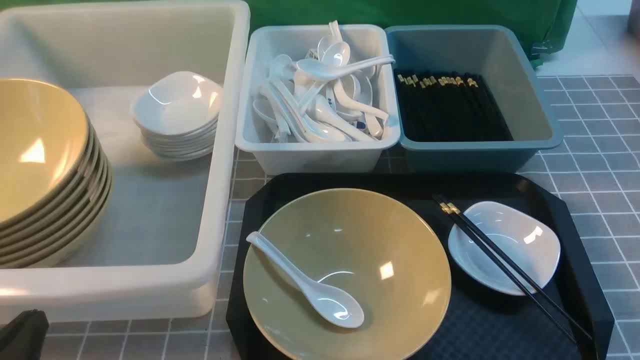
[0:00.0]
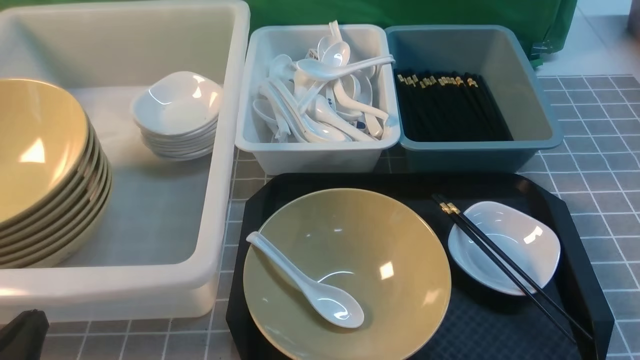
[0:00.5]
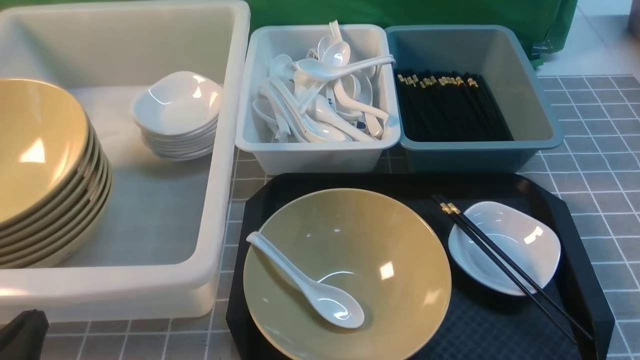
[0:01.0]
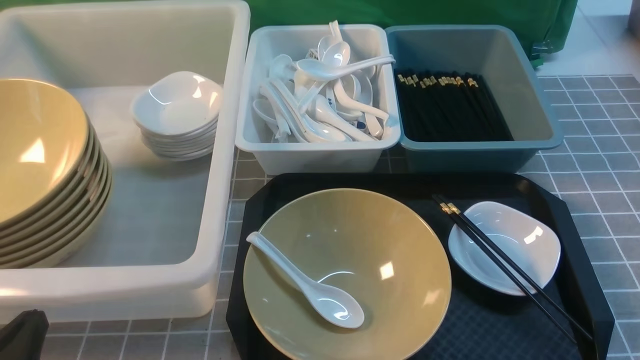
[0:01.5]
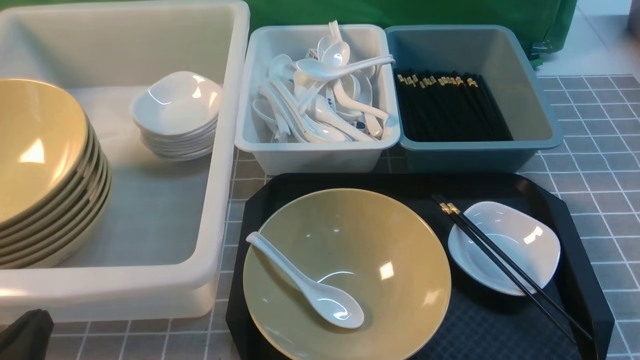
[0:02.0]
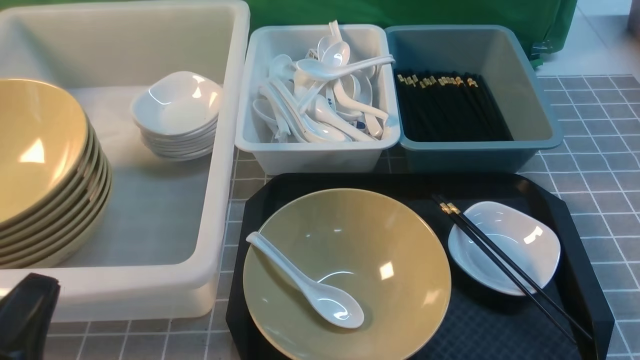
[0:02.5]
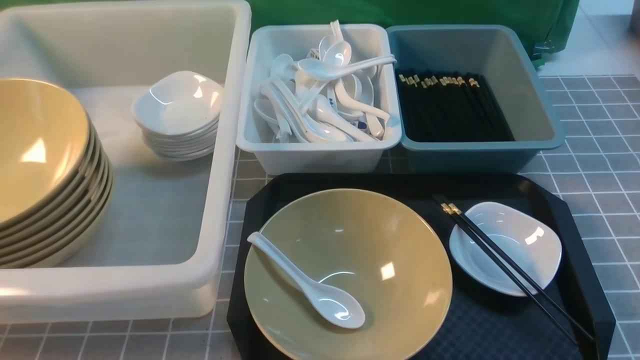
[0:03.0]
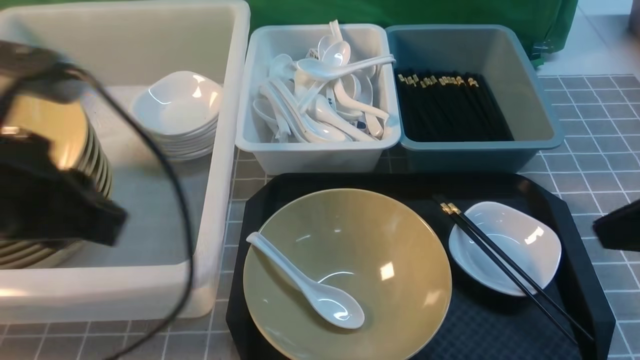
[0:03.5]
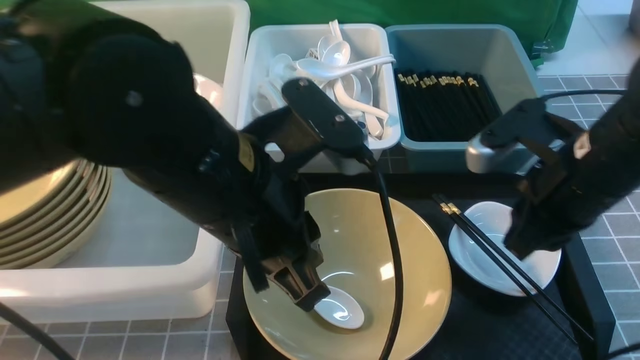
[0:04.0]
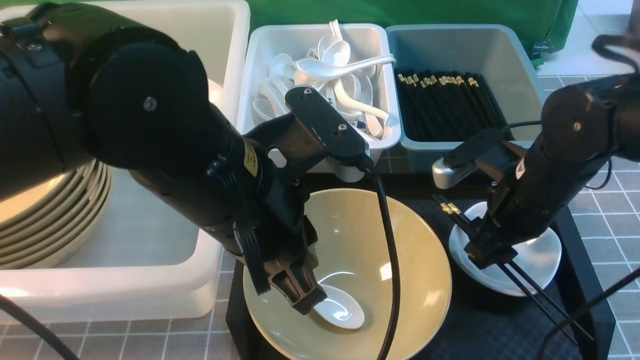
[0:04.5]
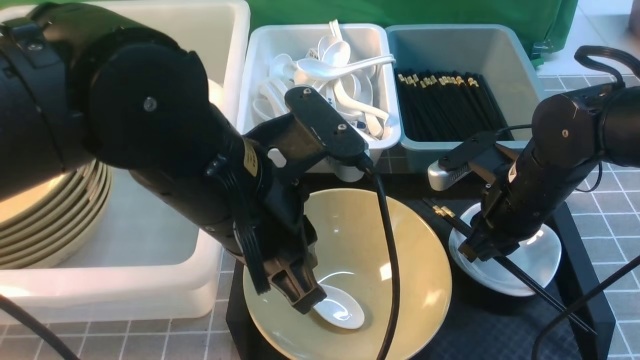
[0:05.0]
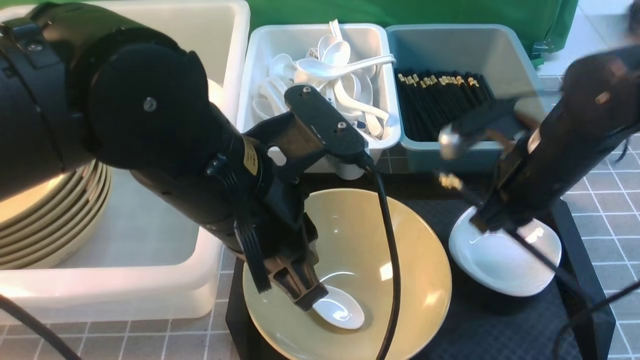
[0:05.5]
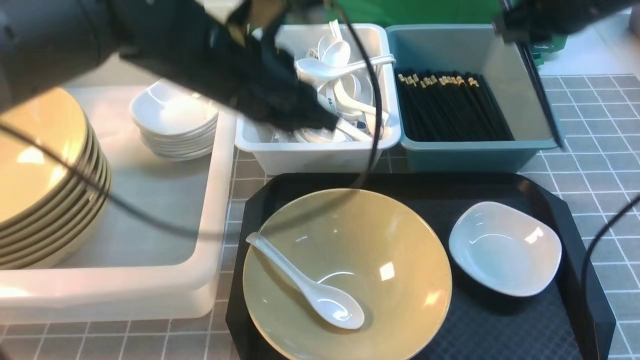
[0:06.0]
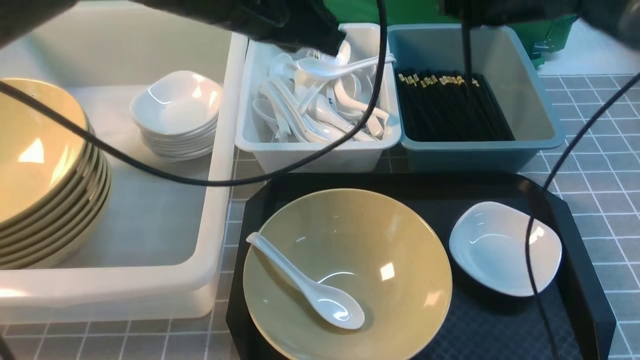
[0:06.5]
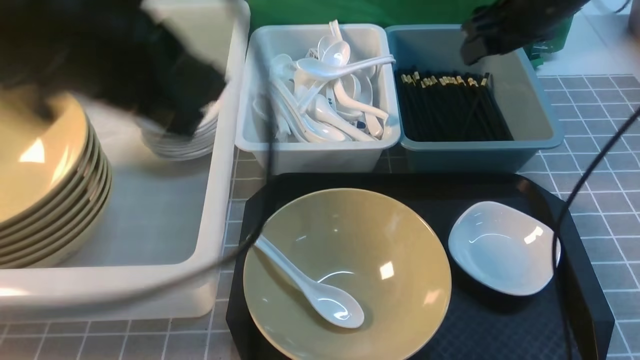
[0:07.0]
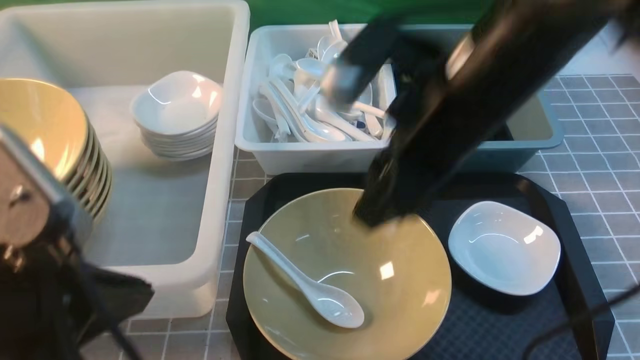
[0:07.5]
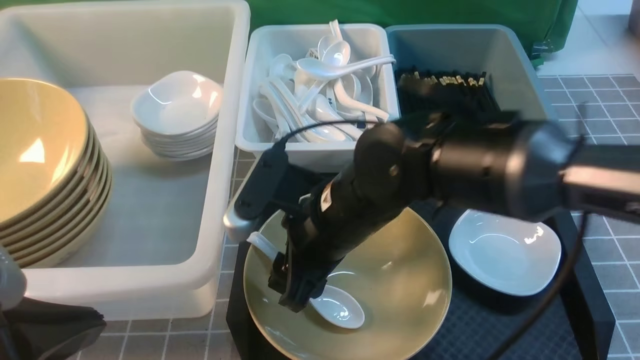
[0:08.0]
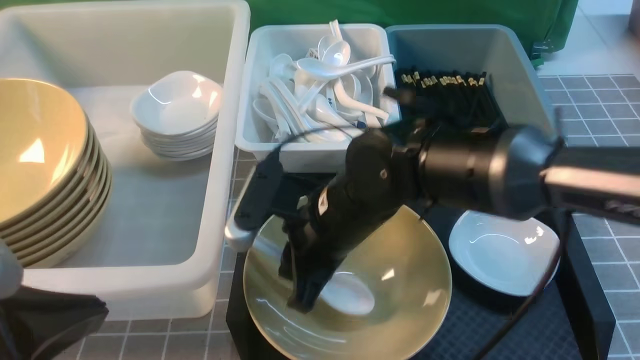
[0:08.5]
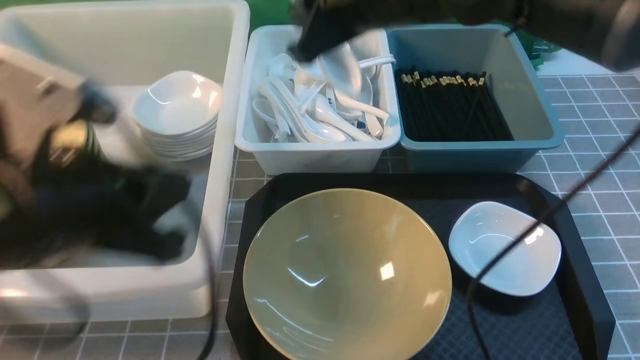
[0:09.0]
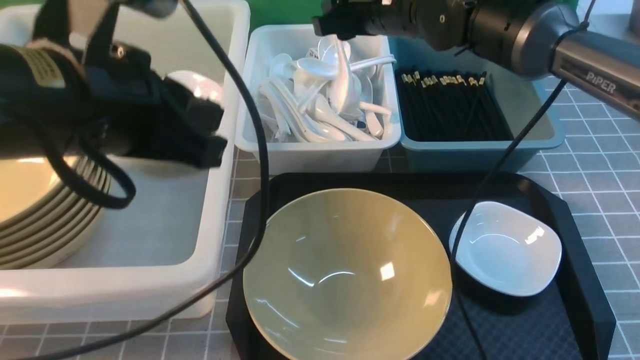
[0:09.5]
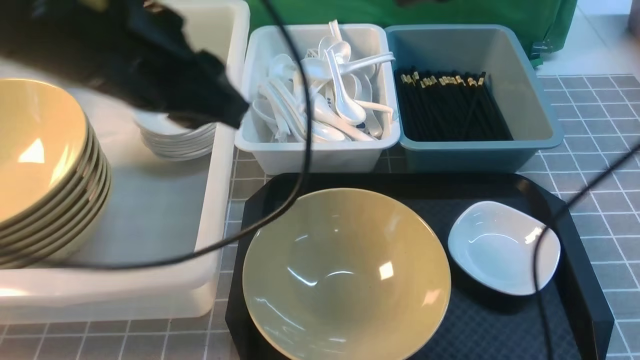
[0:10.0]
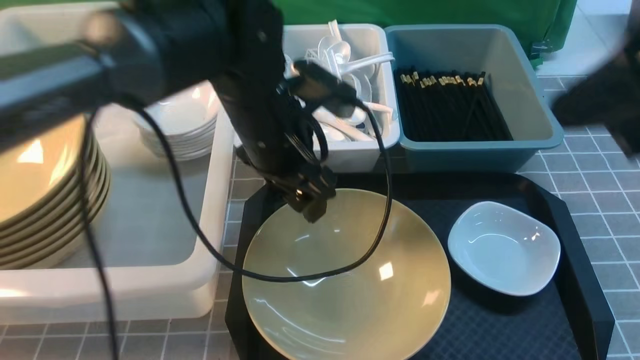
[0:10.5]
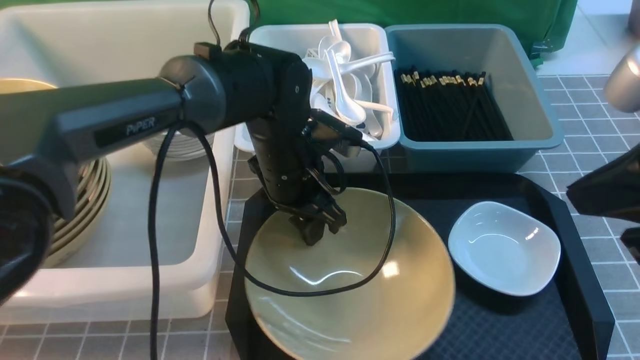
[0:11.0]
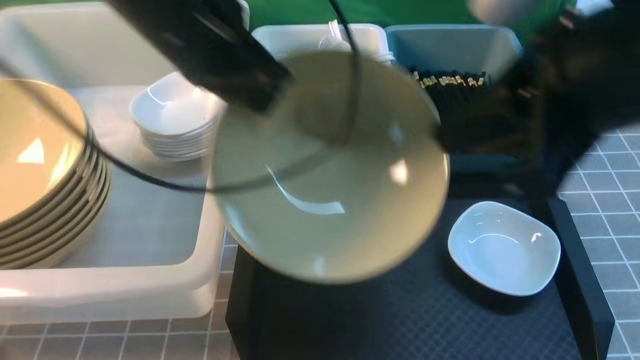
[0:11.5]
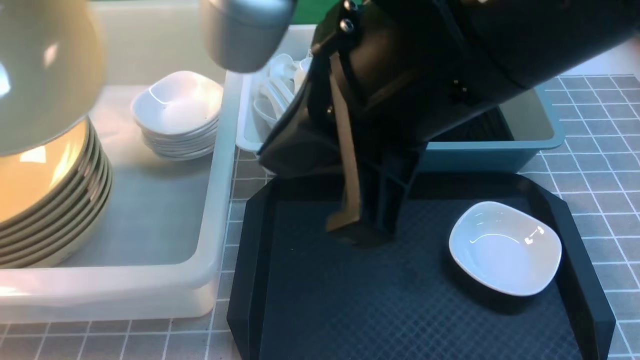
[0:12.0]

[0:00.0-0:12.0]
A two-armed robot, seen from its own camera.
Task of the whole recording: on grey table put chopsticks spoon bowls plates into blue grey white boxes.
Step, 0:00.0 to 0:05.5: use the right arm to grab the chopsticks.
Step, 0:06.0 to 0:06.5: use the right arm to put the chopsticks into the small storage box on the right.
Step, 0:07.0 to 0:08.5: use the right arm to grab the soup spoon in the middle.
Step, 0:09.0 to 0:09.5: use the right arm to put the soup spoon into the small storage box in the middle.
Step, 0:10.0 to 0:11.0: use the left arm to grab the yellow noodle bowl on the left.
0:02.0 to 0:04.0: The right gripper is displaced forward, to the left and upward by about 25 cm; the left gripper shifts approximately 25 cm to the right, upward and forward.
0:04.0 to 0:06.0: The right gripper moves forward and upward, about 15 cm, and opens and closes again; the left gripper goes approximately 10 cm forward.
0:06.0 to 0:08.0: The left gripper moves backward and to the left, approximately 25 cm, while the right gripper goes approximately 25 cm to the left, backward and downward, and opens its fingers.
0:08.0 to 0:10.0: The right gripper moves upward, to the right and forward, about 25 cm, and closes, then reopens. Meanwhile the left gripper moves forward and to the right, about 20 cm.
0:10.0 to 0:12.0: The right gripper is displaced backward by about 20 cm, and closes, while the left gripper goes about 20 cm to the left, and opens, then closes again.

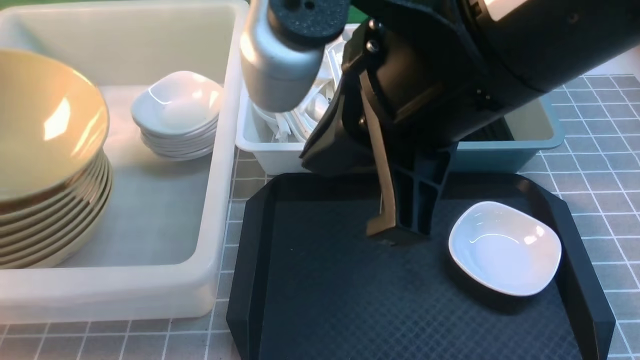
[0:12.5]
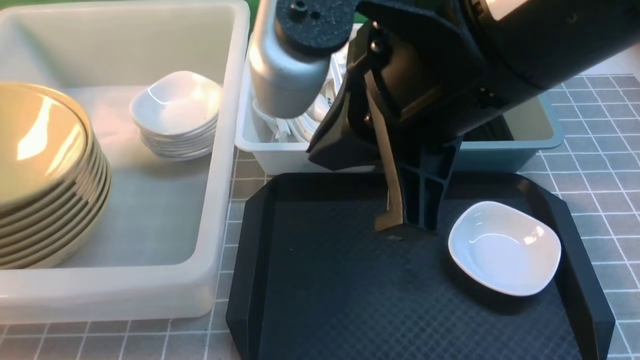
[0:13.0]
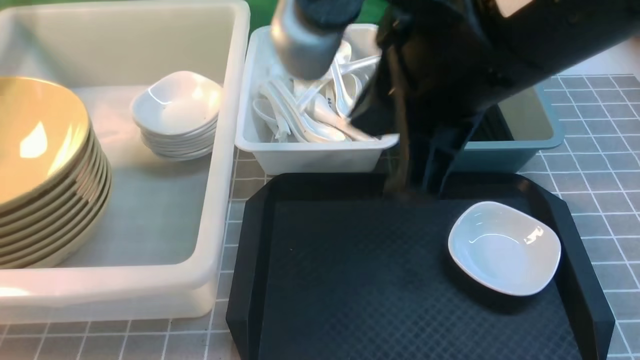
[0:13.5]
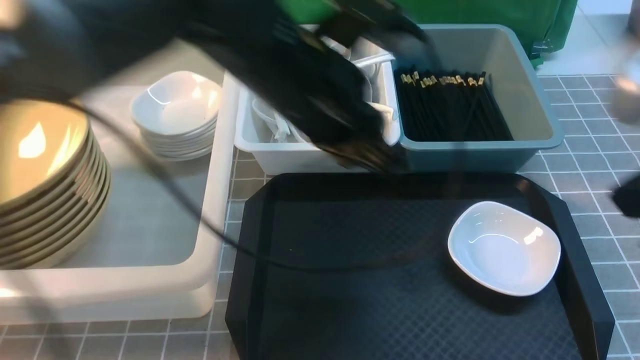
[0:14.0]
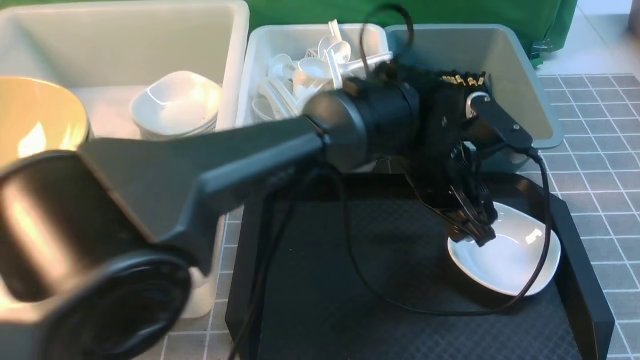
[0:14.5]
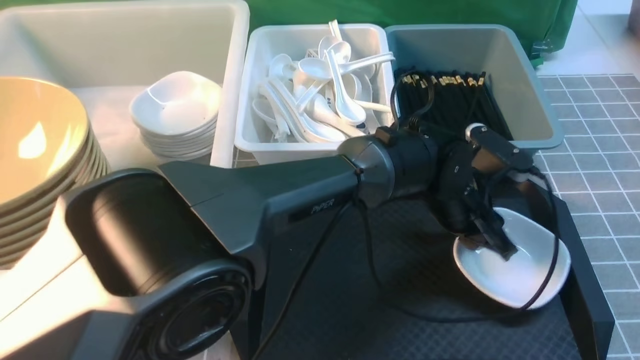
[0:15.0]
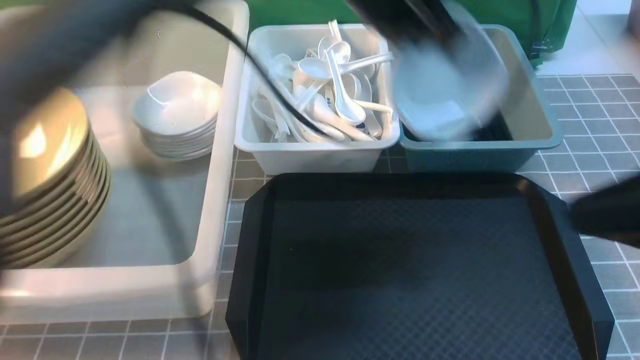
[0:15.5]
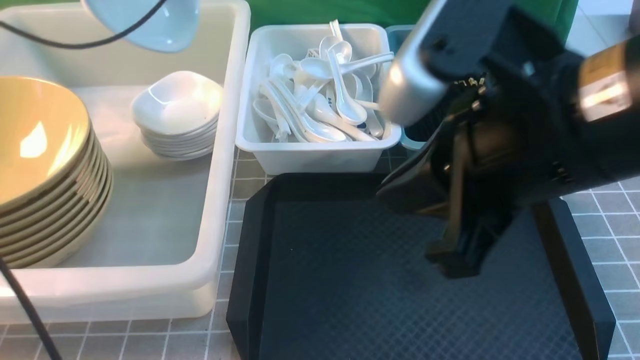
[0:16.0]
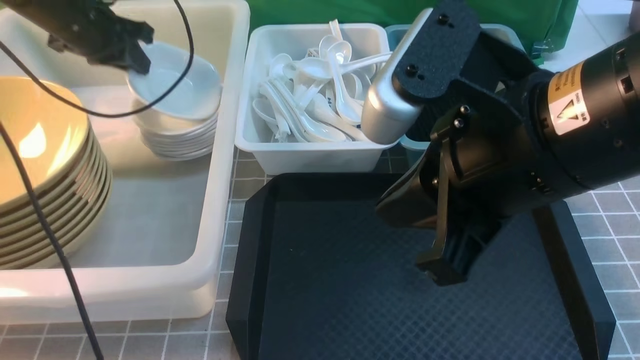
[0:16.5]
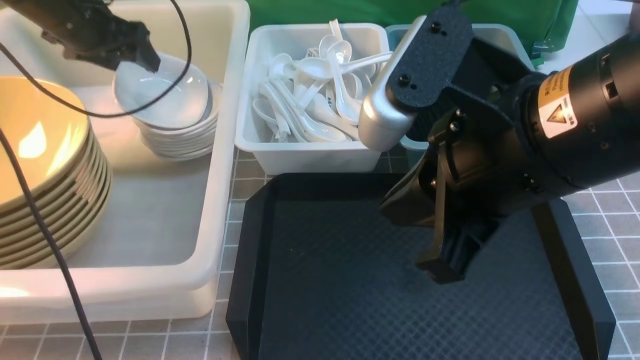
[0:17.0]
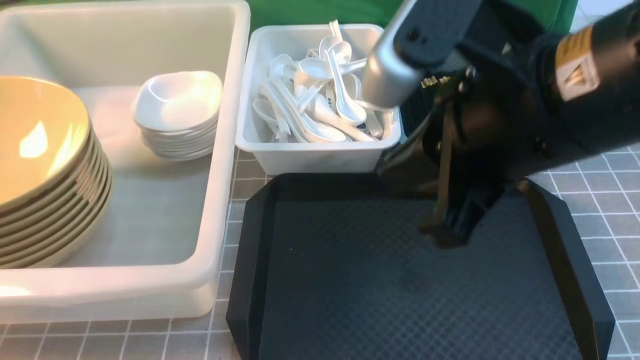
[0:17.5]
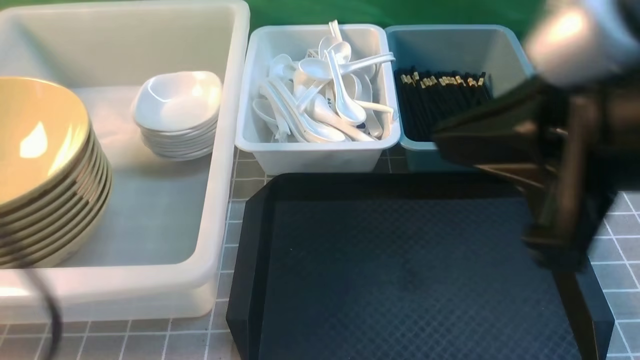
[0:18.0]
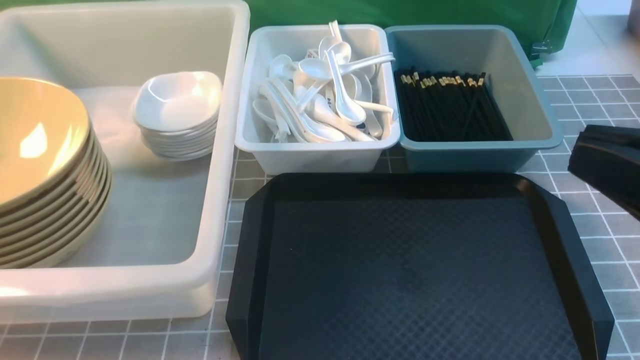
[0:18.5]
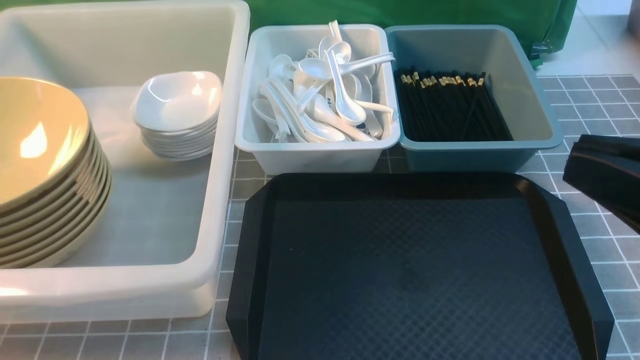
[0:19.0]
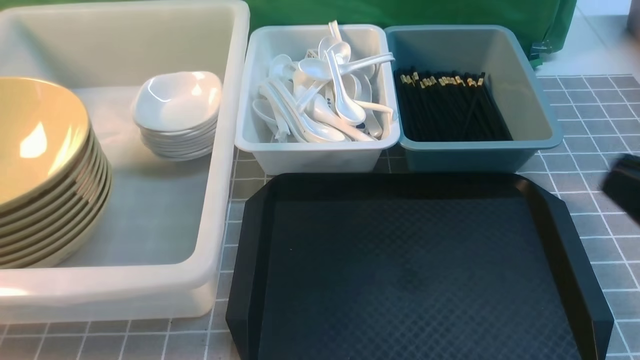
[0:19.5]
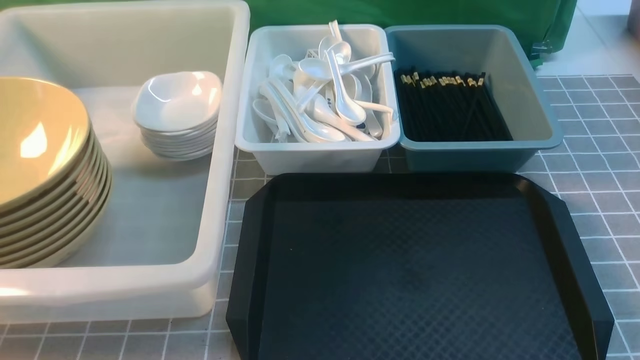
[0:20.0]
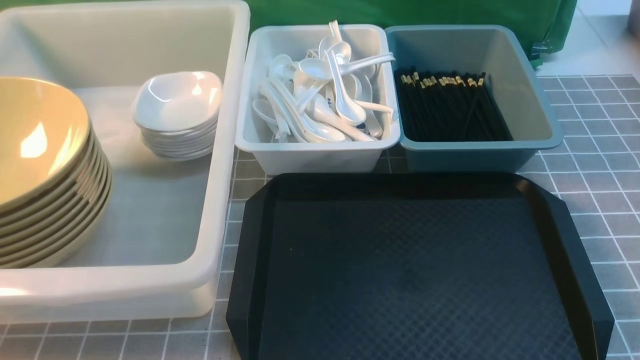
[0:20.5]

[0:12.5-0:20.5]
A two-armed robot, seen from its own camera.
Task of the whole recording: on grey table put chopsticks spoon bowls plates into blue grey white boxes.
Step, 0:13.5 to 0:15.0: use the left arm to grab the plate.
Step, 0:15.5 to 0:17.0: use the left arm to put the plate into the large storage box on the left.
0:12.5 to 0:14.5: The right gripper goes about 25 cm to the right and backward, while the left gripper heads to the right, covering about 50 cm, and opens its fingers.
0:14.5 to 0:16.5: The right gripper travels to the left and forward by some 20 cm. Meanwhile the left gripper goes some 40 cm to the left and forward, and closes.
0:16.5 to 0:18.5: The right gripper is displaced to the right and backward by roughly 15 cm, while the left gripper goes about 50 cm backward, and opens and closes again.
0:18.5 to 0:20.5: The right gripper goes roughly 25 cm downward and to the right.
